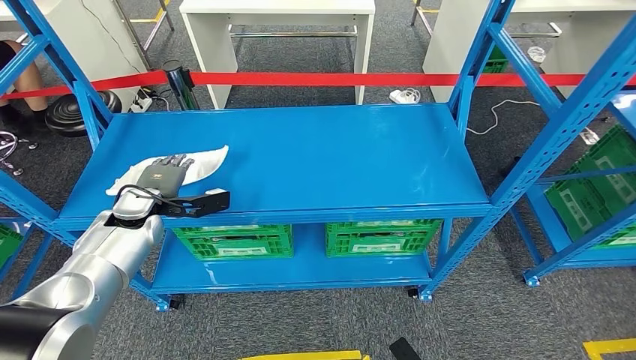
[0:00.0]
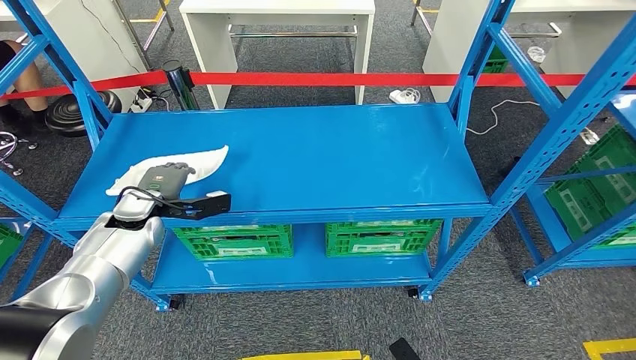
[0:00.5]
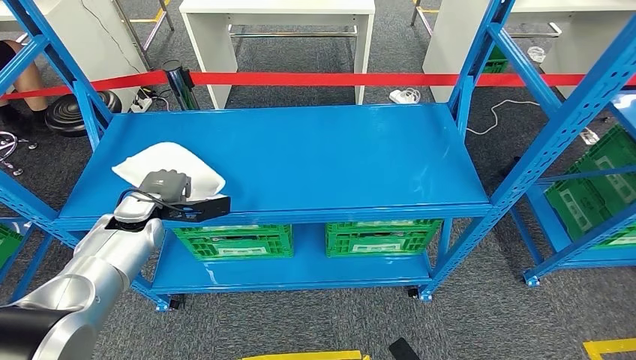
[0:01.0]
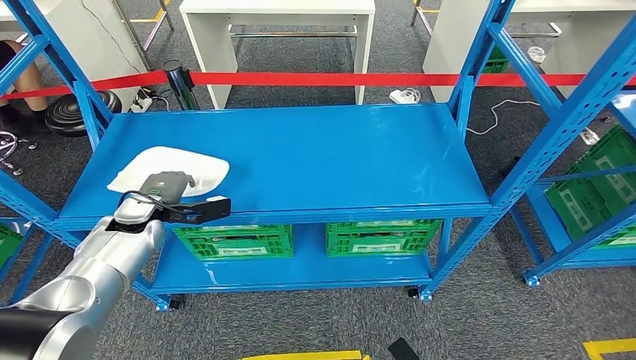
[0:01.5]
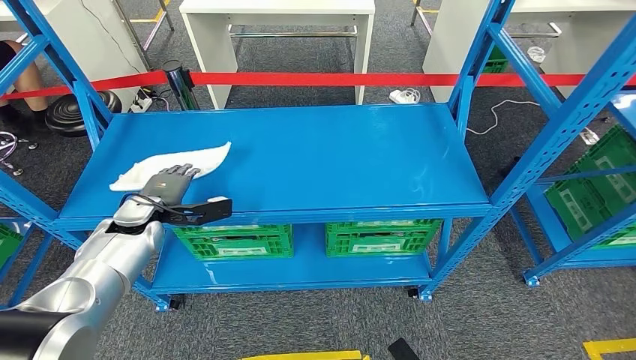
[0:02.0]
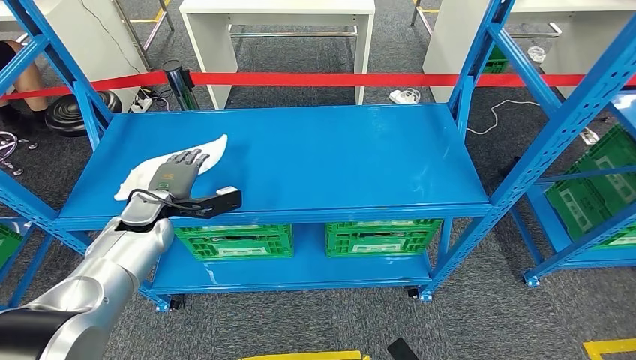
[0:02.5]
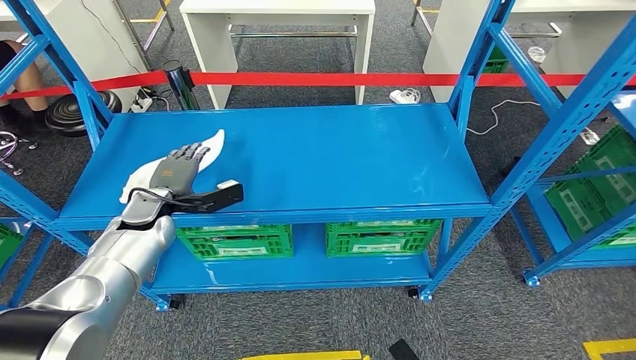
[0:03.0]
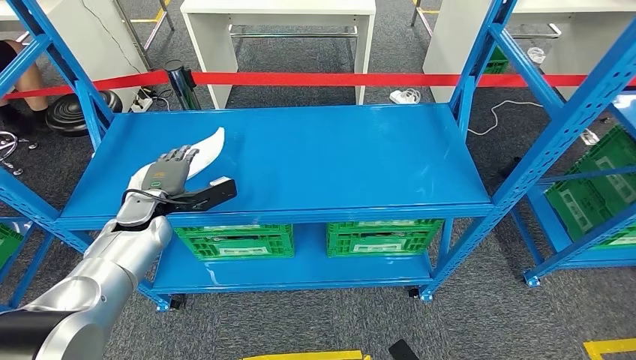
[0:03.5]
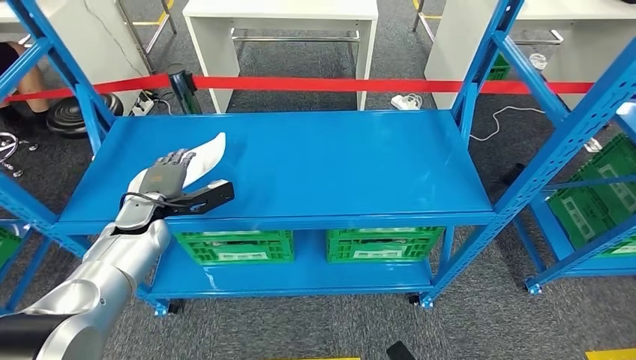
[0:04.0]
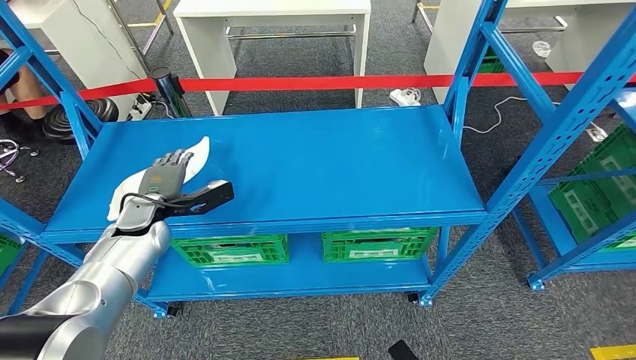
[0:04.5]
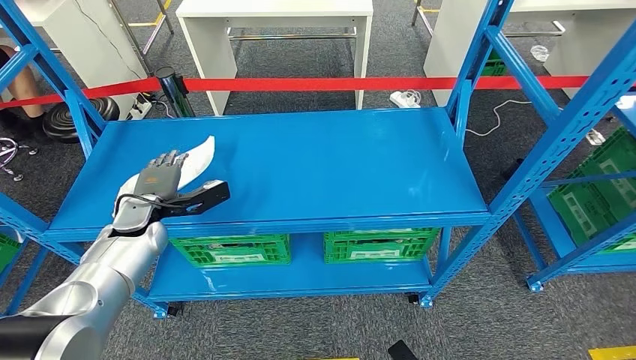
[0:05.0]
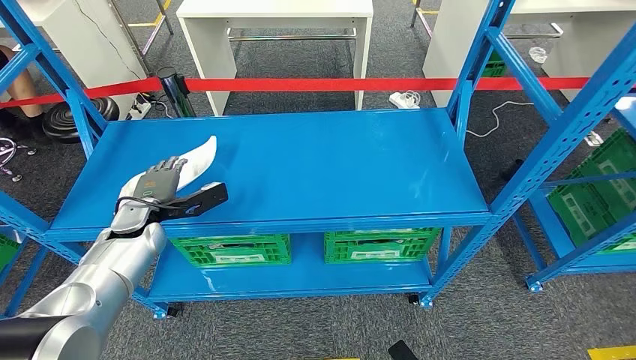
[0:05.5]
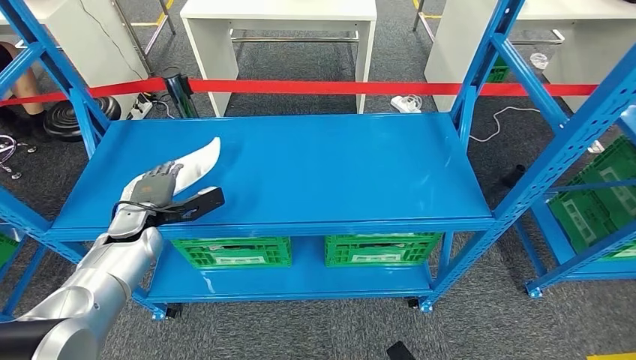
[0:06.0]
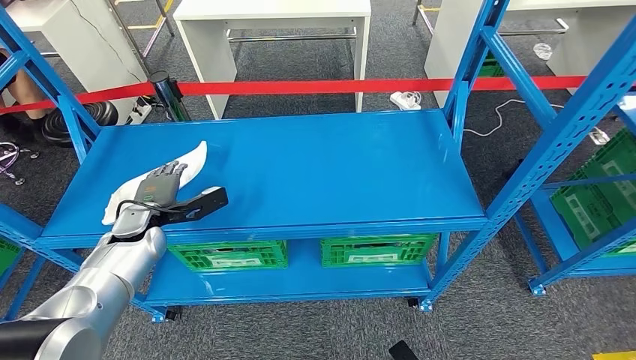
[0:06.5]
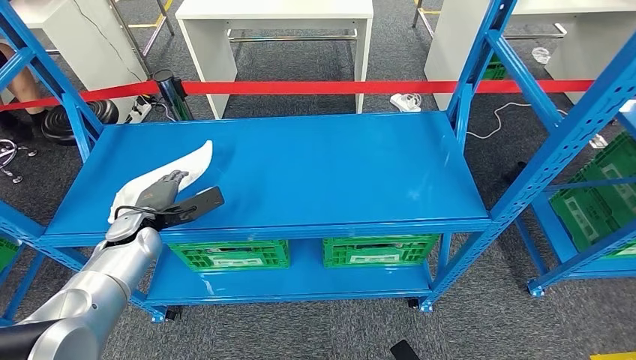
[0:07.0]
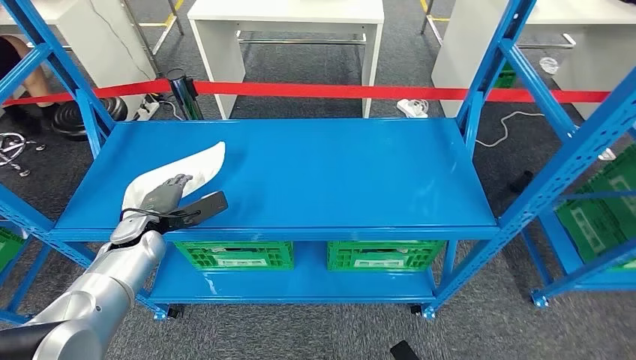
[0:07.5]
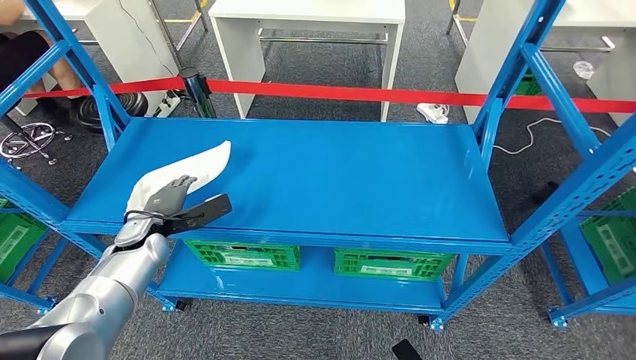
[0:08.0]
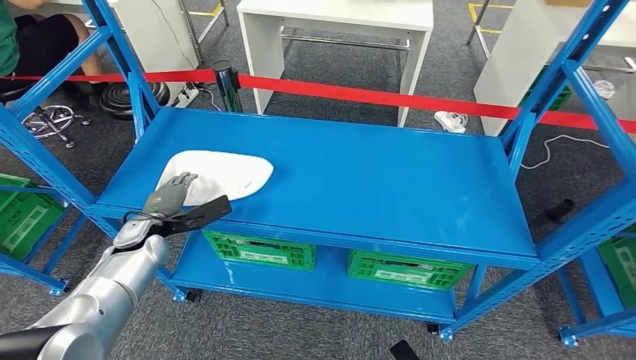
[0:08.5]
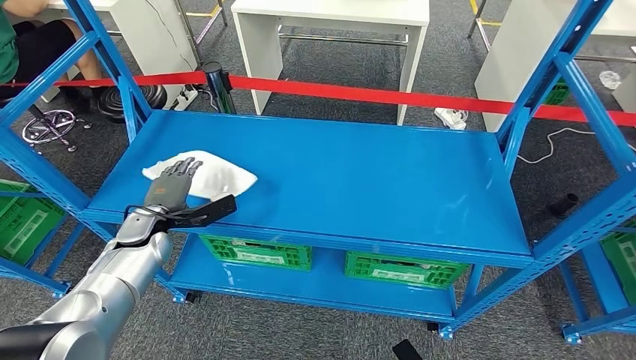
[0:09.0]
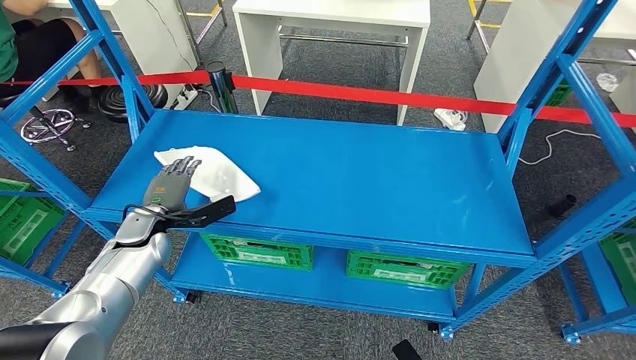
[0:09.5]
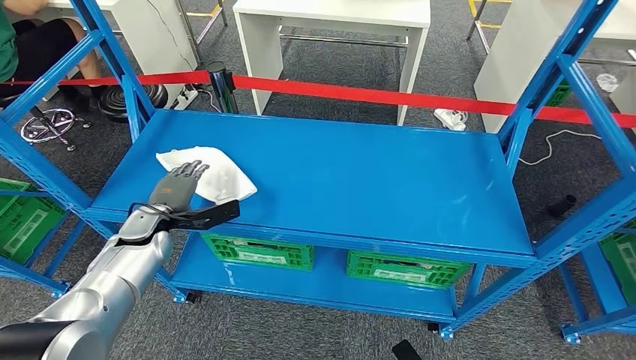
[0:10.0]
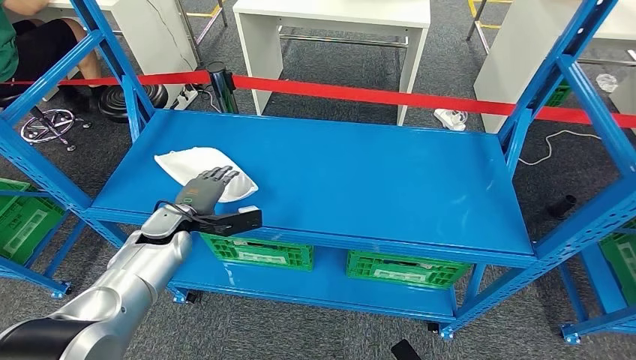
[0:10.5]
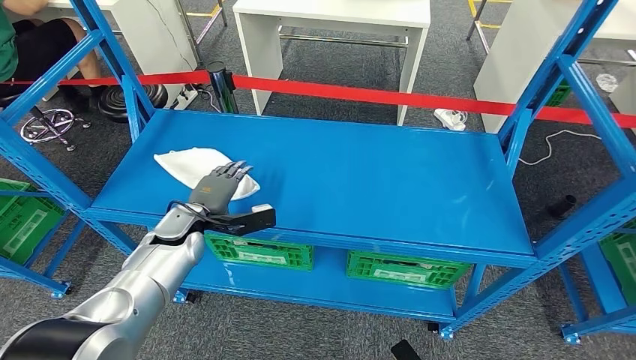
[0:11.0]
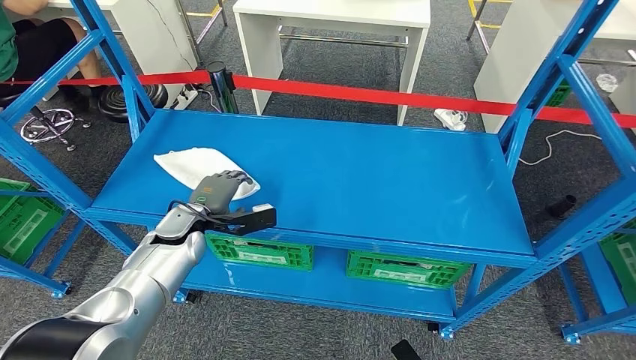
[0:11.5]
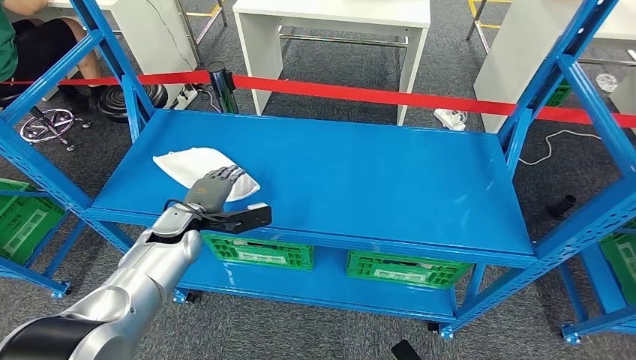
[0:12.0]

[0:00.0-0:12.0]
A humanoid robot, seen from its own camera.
0:00.0 to 0:02.0: The hands move only a little.
0:04.0 to 0:06.0: The hands make only small movements.
0:10.0 to 0:12.0: The left hand is displaced to the right by some 5 cm.

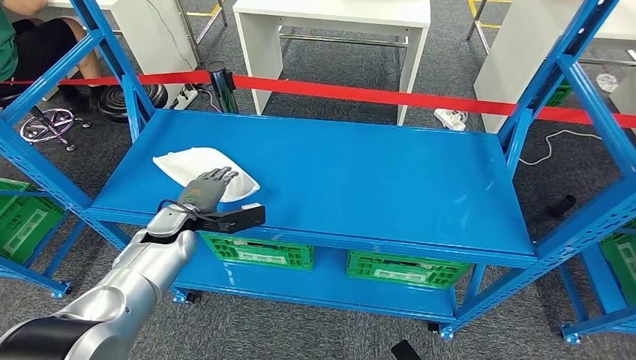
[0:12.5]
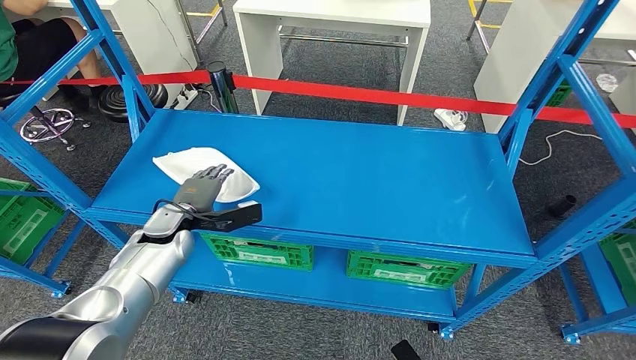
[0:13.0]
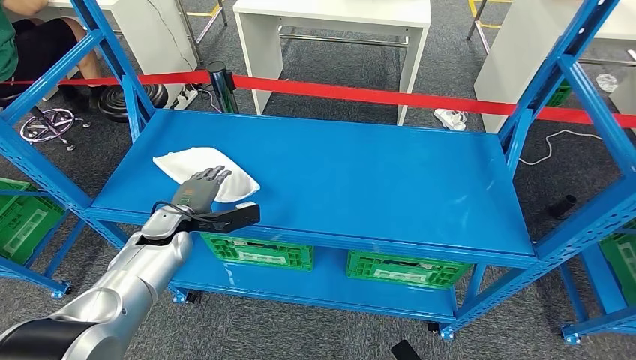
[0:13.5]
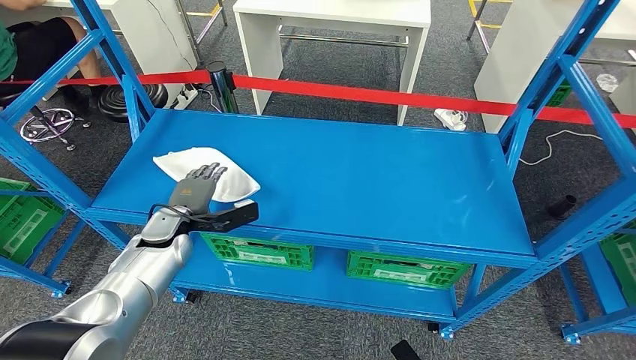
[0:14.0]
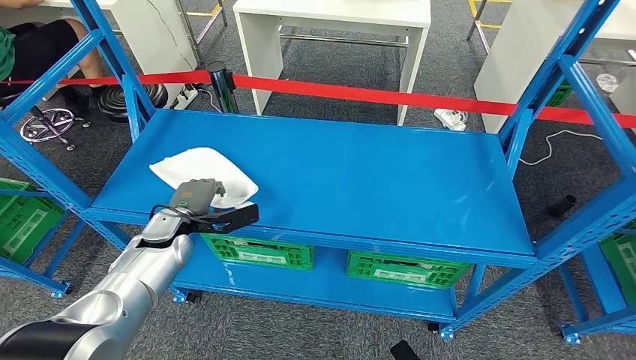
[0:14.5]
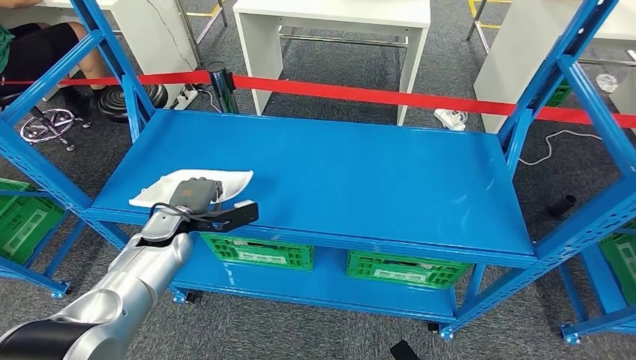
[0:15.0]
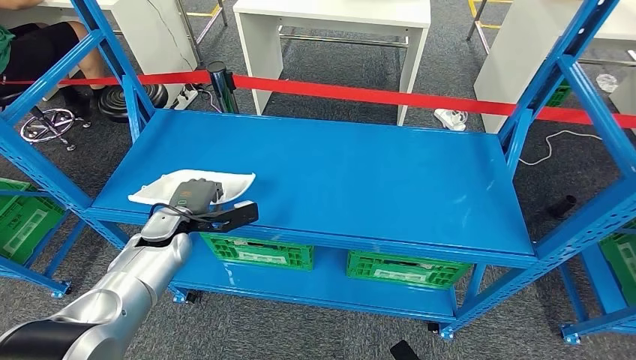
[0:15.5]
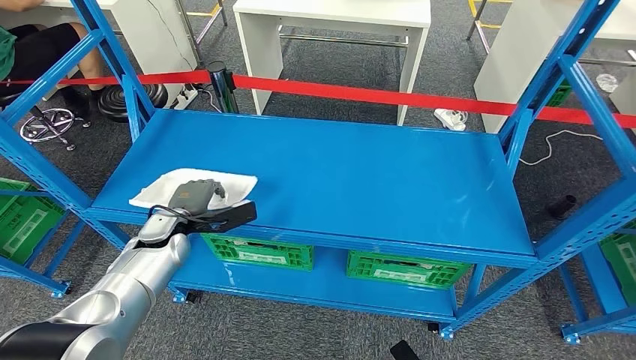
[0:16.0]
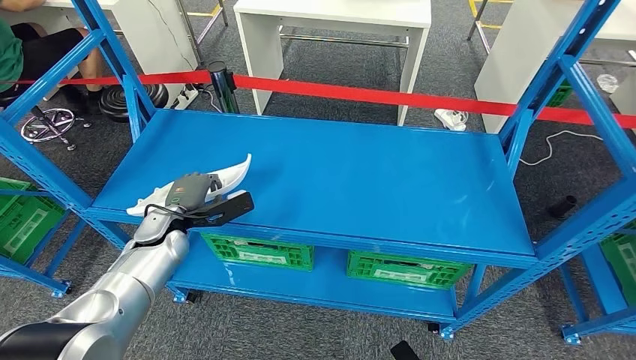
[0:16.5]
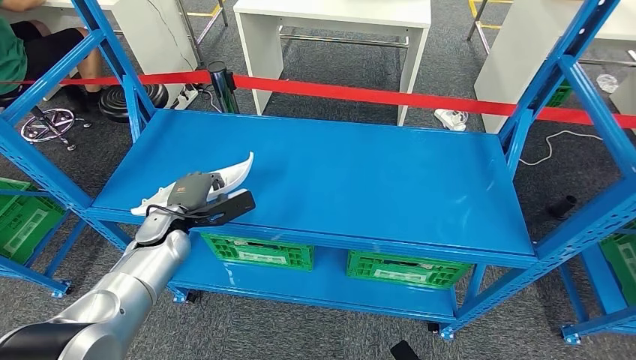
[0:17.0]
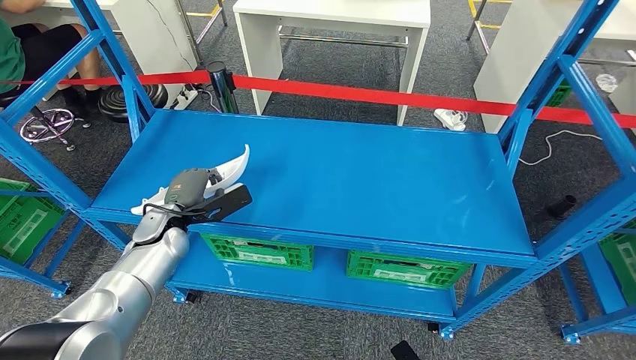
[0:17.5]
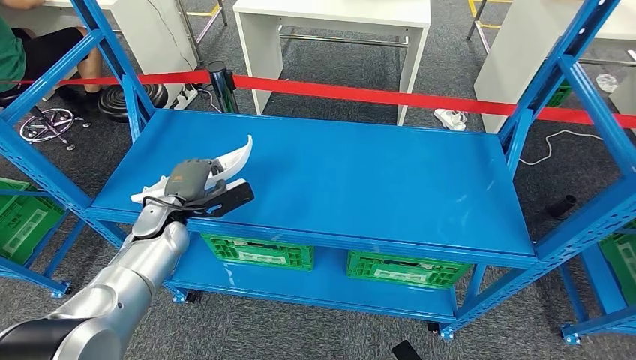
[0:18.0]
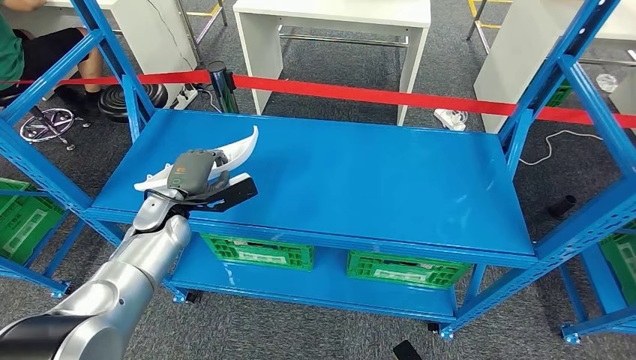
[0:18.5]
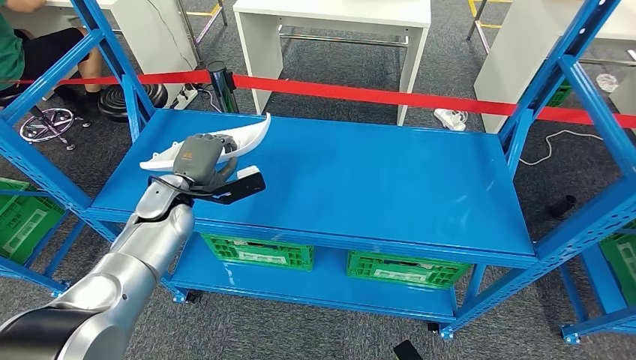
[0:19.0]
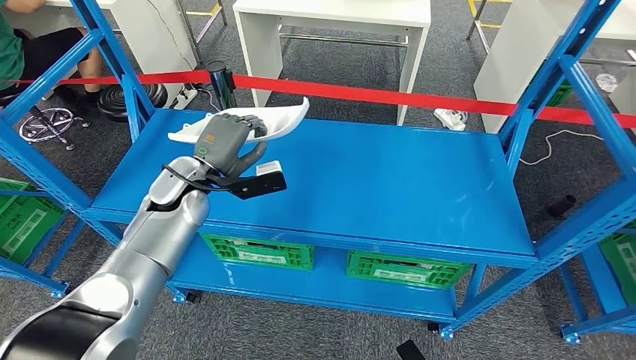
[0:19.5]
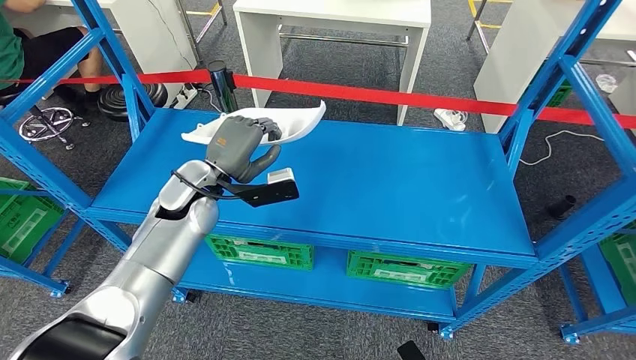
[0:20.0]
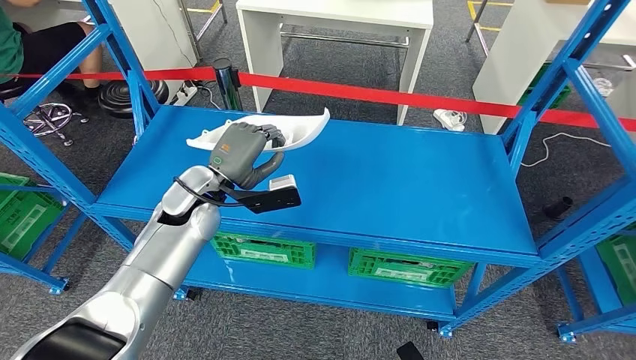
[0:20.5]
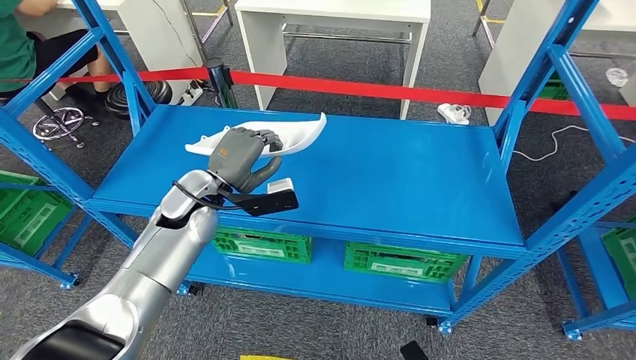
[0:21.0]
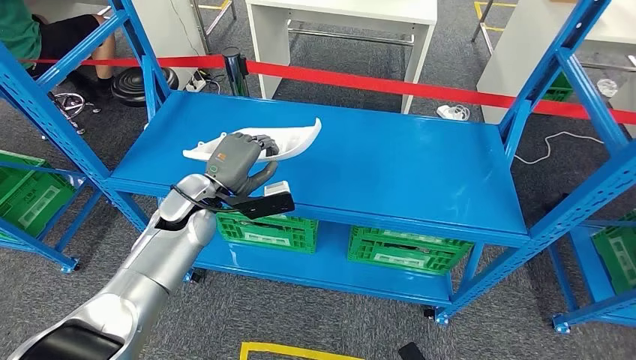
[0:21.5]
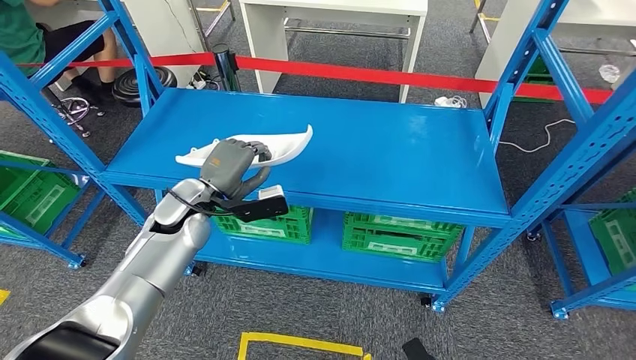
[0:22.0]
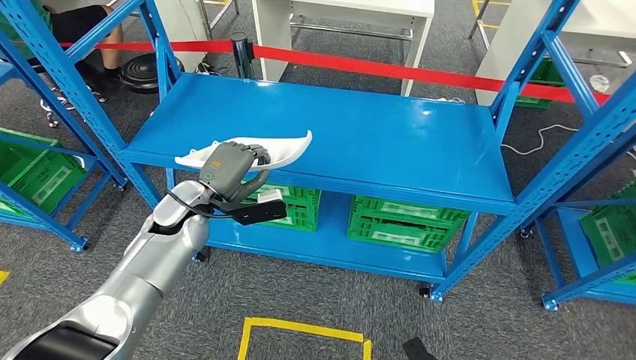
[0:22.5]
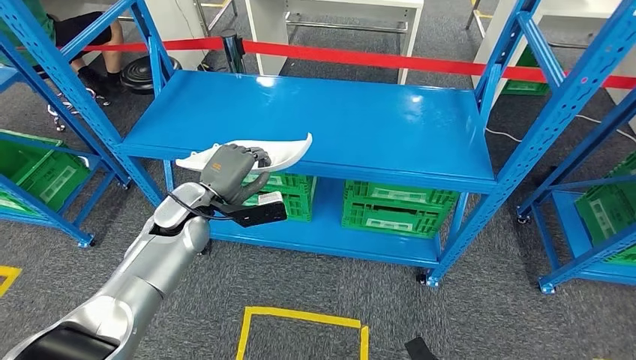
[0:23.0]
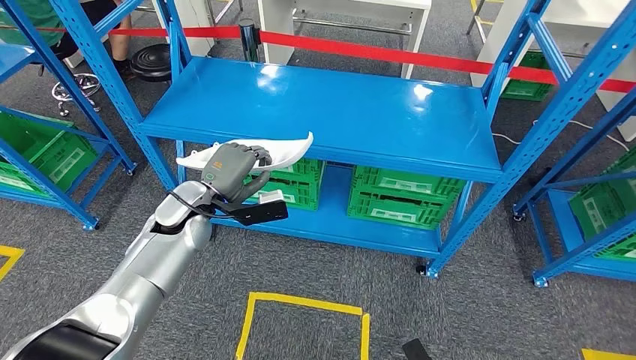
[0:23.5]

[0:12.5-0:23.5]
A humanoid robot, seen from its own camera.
Step, 0:12.5 to 0:20.5: Pick up the small component from the shelf.
0:12.5 to 0:14.5: The hands make only small movements.
0:14.5 to 0:16.0: Both hands stay about where they are.
0:16.0 to 0:18.0: The hands move only a little.
0:18.0 to 0:20.0: The left hand travels upward and to the right by about 15 cm.
